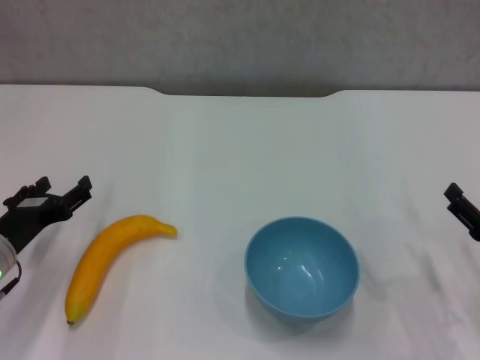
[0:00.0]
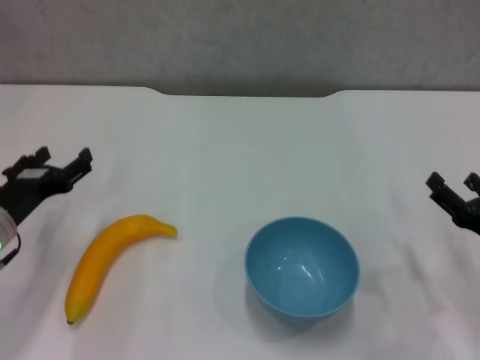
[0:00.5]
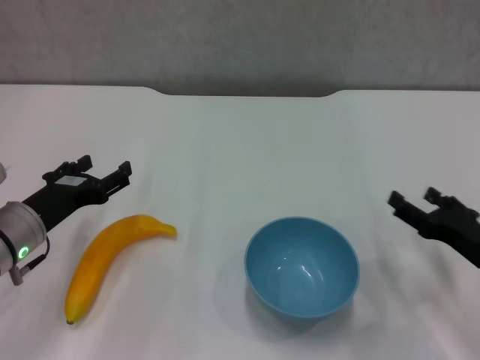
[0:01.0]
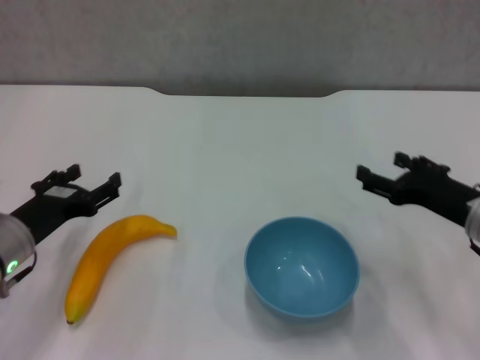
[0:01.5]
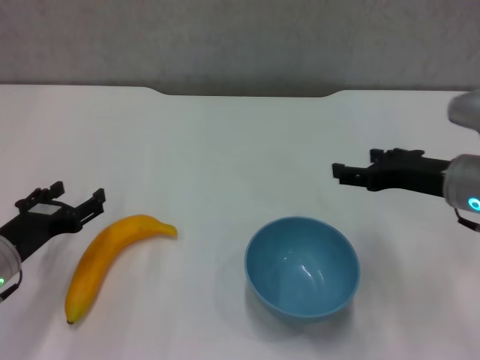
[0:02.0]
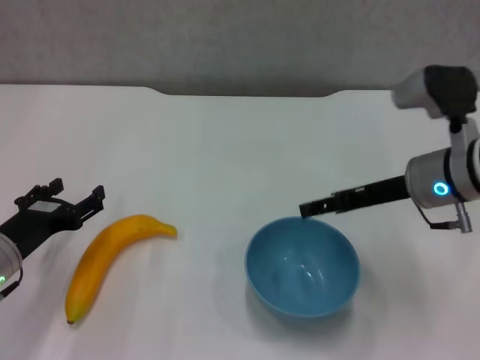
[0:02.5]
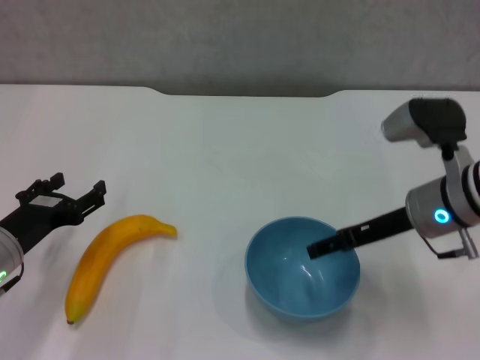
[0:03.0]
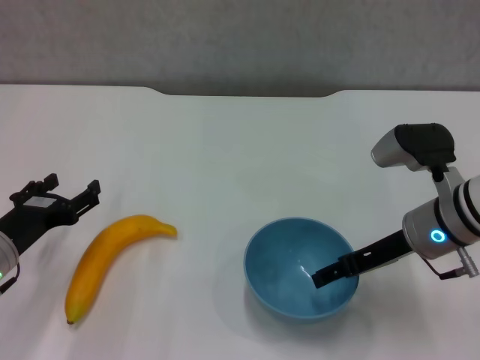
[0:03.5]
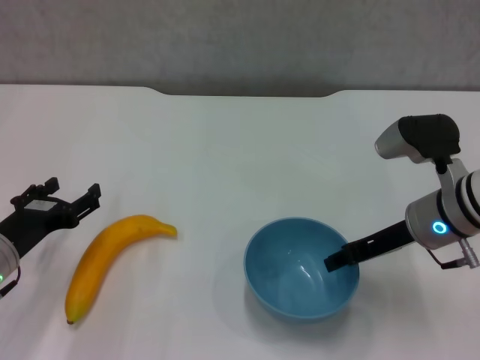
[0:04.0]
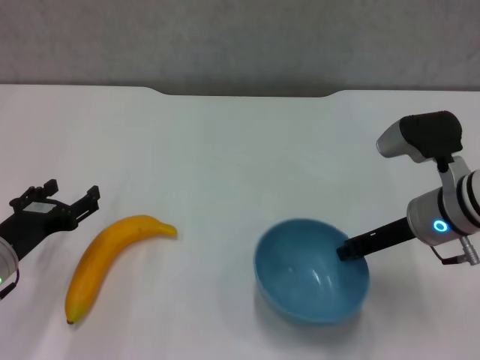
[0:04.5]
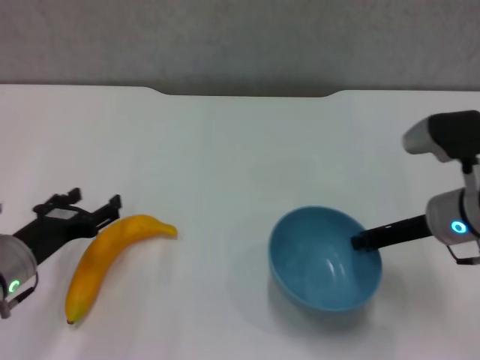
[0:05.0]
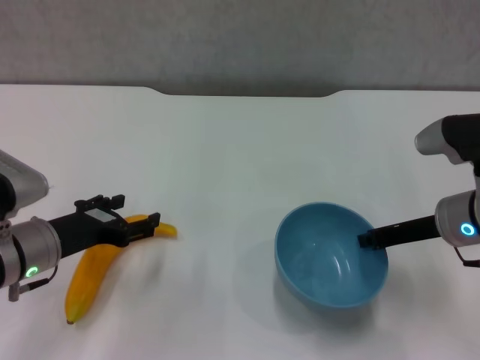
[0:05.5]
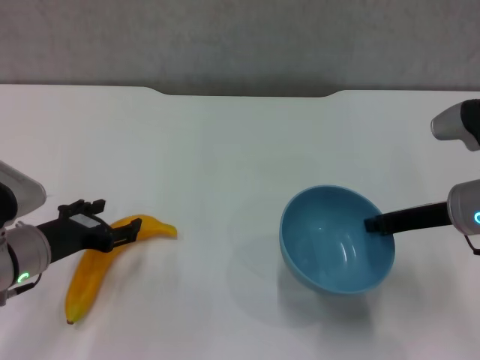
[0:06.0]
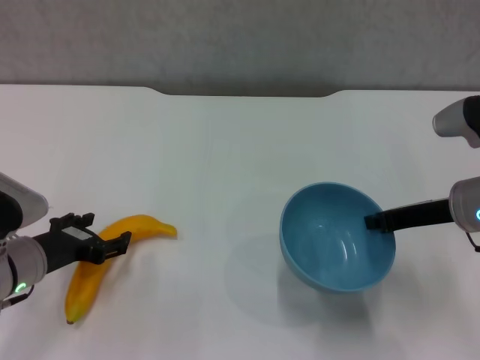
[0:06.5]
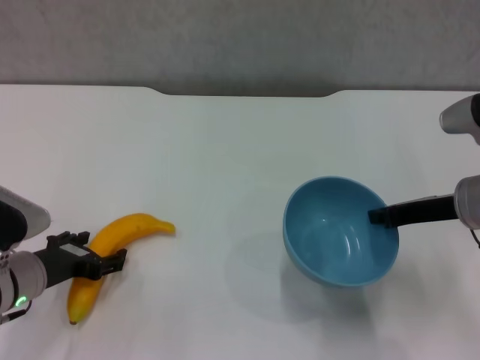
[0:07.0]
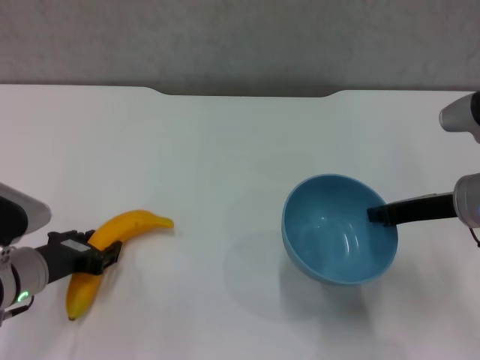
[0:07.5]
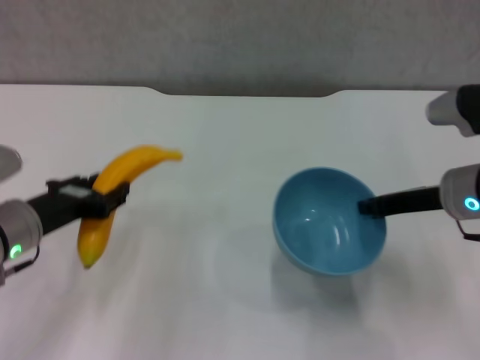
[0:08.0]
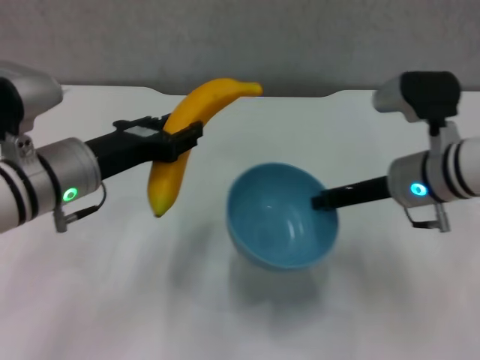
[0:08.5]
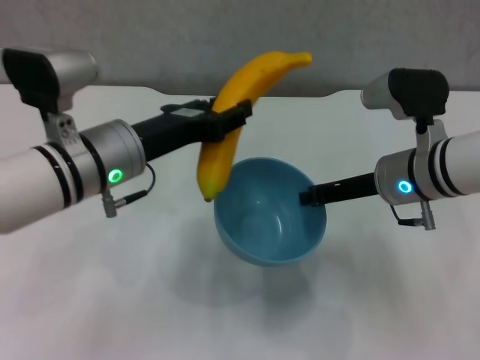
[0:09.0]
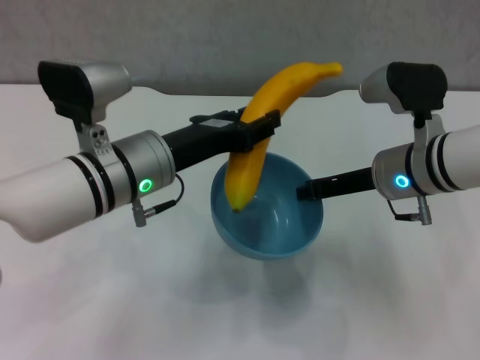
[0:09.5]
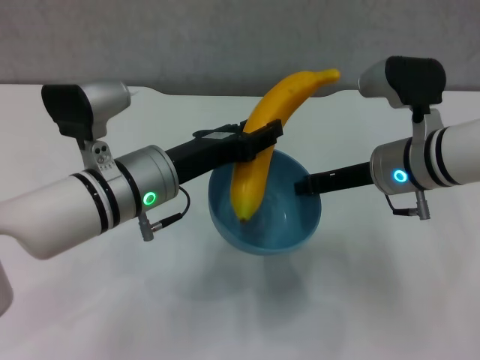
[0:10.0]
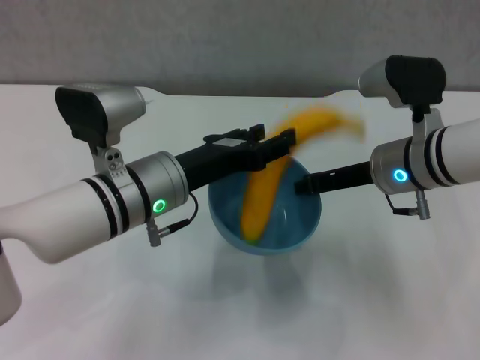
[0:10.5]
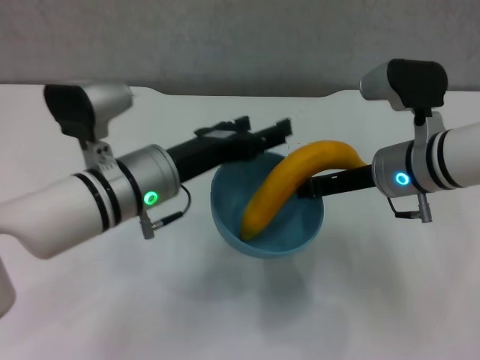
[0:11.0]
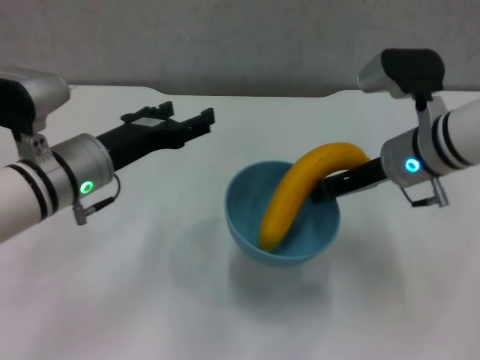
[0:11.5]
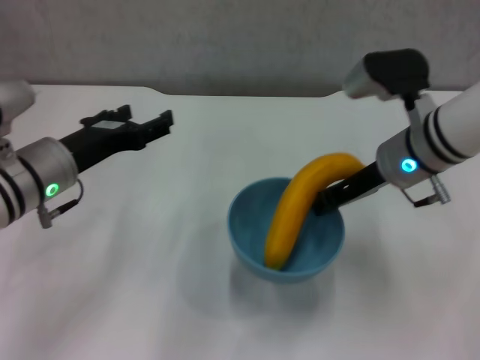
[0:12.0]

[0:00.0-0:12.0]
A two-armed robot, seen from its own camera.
Step, 0:00.0 to 0:04.0: Grasp the blue bowl with right gripper.
Step, 0:05.0 to 0:06.0: Lift the blue bowl with right gripper.
Step, 0:06.5 to 0:07.0: Grasp the banana with left gripper.
Step, 0:08.0 to 0:10.5: Place the banana in the blue bowl with left gripper.
0:00.0 to 0:02.0: The right gripper heads upward, forward and to the left, covering roughly 15 cm.
0:02.0 to 0:04.0: The right gripper closes.
0:04.0 to 0:06.0: The right gripper closes up.
0:06.0 to 0:08.0: The left gripper closes up.
0:08.0 to 0:10.0: The right gripper shifts some 5 cm to the left. Meanwhile the left gripper moves to the right, approximately 15 cm.
0:10.0 to 0:12.0: The left gripper travels to the left by roughly 10 cm, and opens.

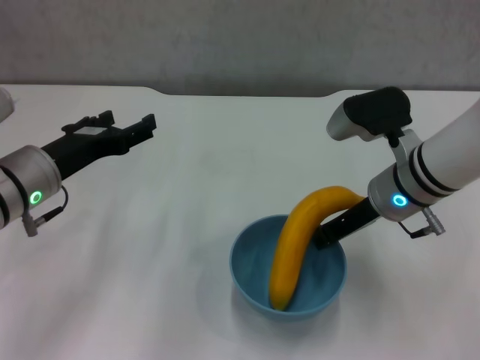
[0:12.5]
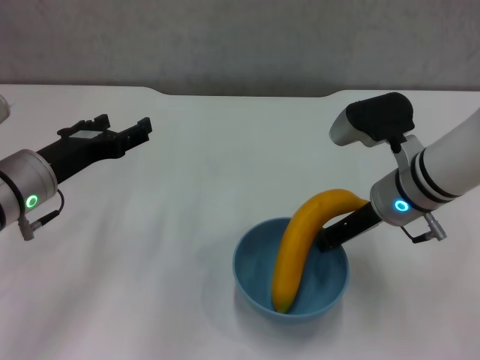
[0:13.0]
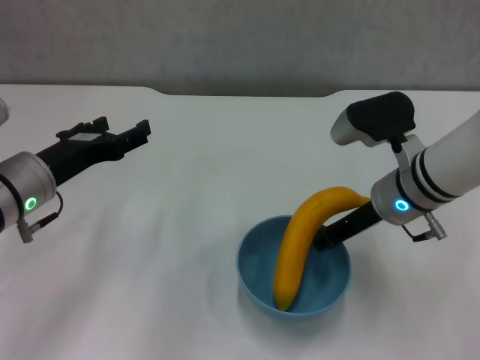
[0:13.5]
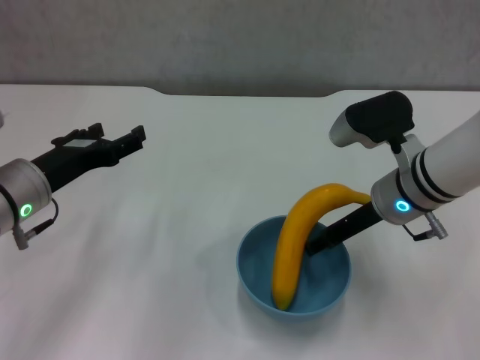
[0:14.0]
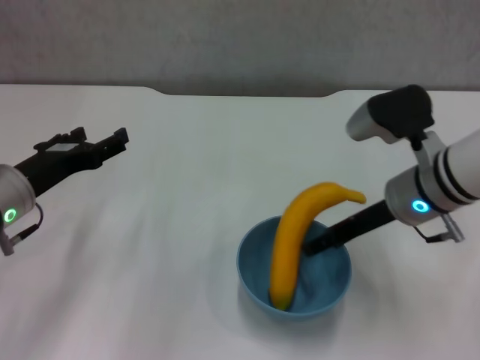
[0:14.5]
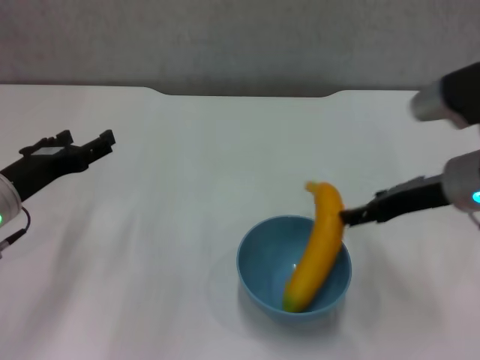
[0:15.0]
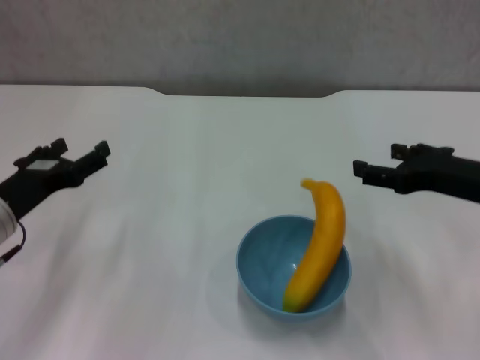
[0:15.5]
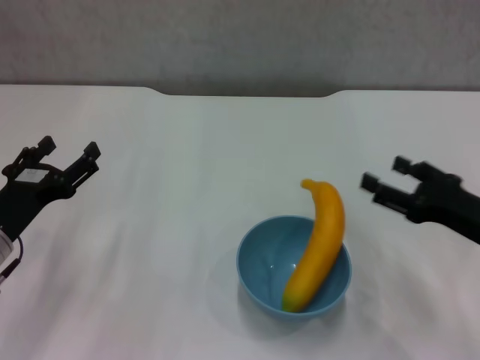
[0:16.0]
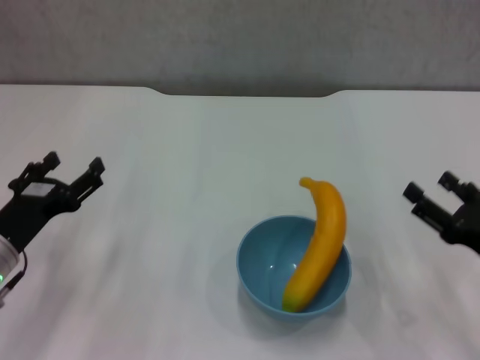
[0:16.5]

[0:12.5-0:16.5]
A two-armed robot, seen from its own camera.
Step, 0:12.5 to 0:14.5: Place the bowl on the table with right gripper.
0:12.5 to 0:14.5: The right gripper opens its fingers.
0:14.5 to 0:16.5: The left gripper goes about 5 cm downward. The right gripper is displaced backward, to the right and downward by about 20 cm.
